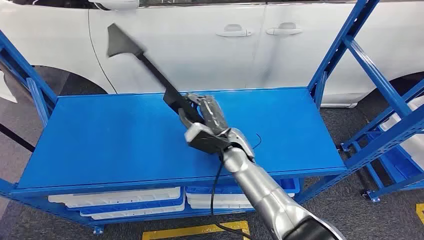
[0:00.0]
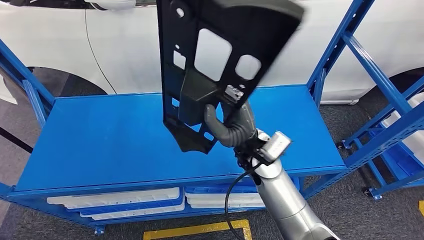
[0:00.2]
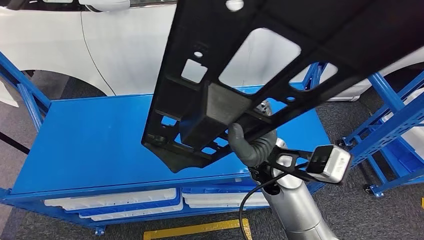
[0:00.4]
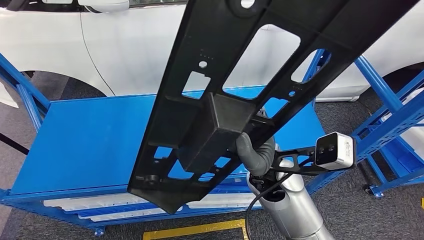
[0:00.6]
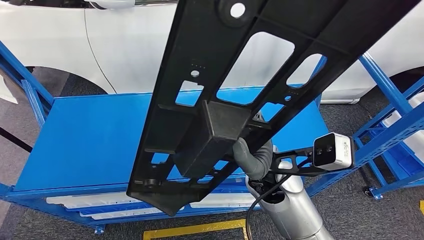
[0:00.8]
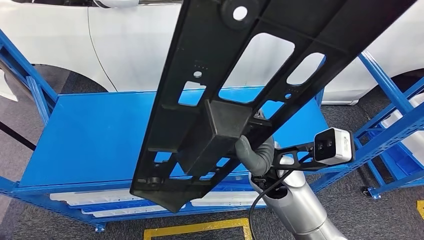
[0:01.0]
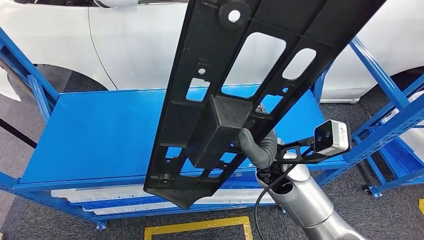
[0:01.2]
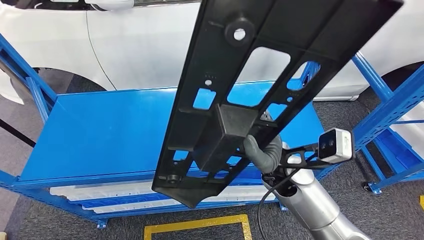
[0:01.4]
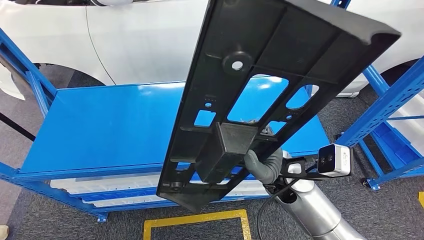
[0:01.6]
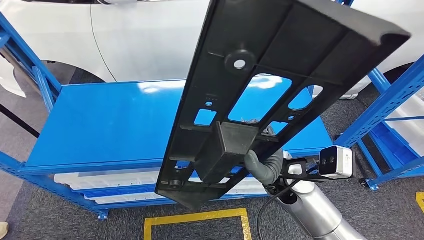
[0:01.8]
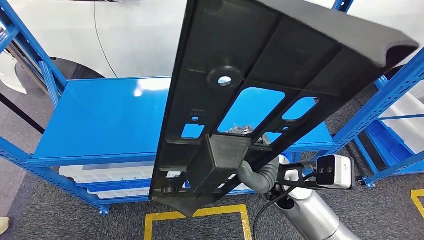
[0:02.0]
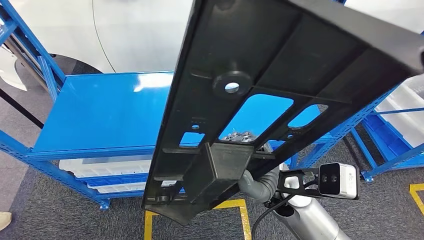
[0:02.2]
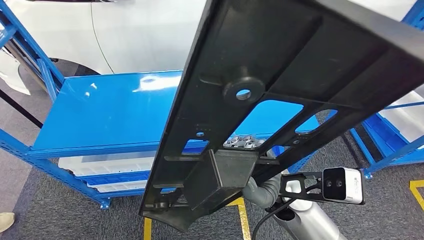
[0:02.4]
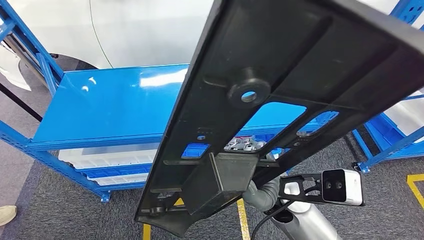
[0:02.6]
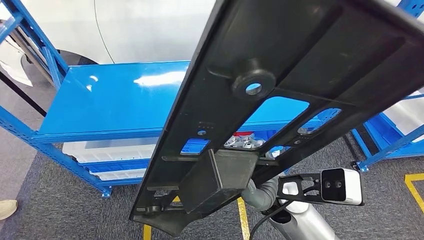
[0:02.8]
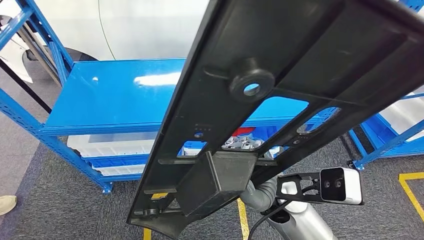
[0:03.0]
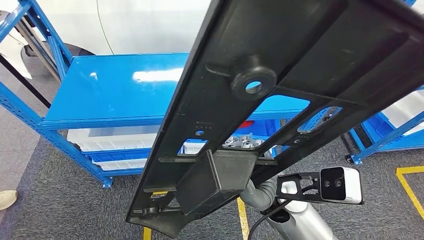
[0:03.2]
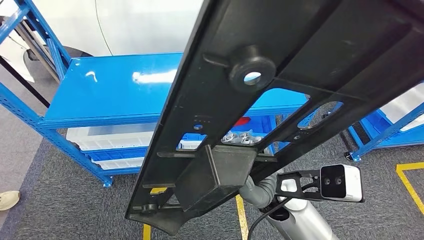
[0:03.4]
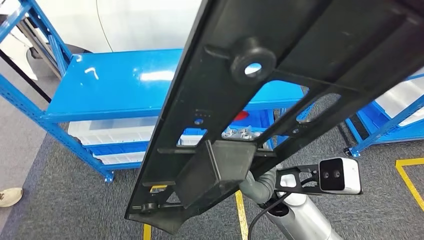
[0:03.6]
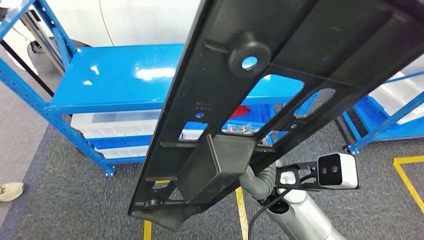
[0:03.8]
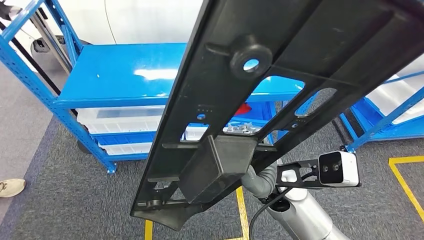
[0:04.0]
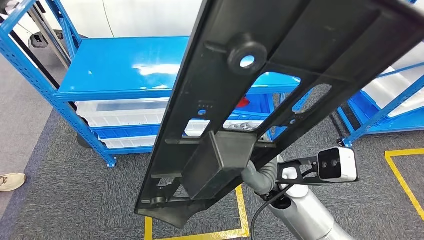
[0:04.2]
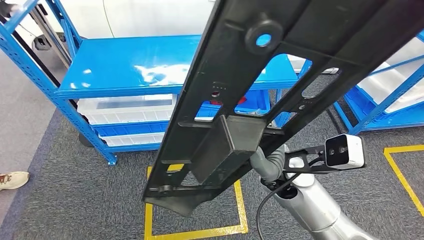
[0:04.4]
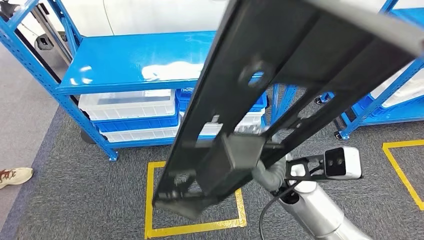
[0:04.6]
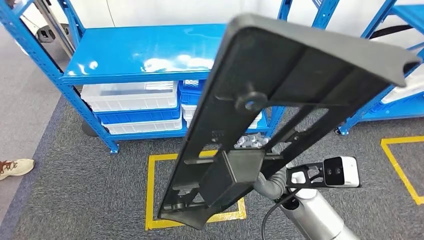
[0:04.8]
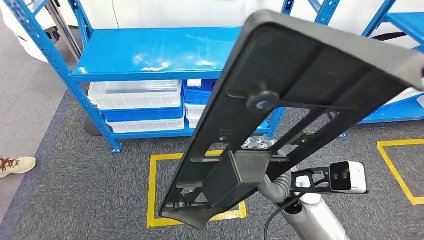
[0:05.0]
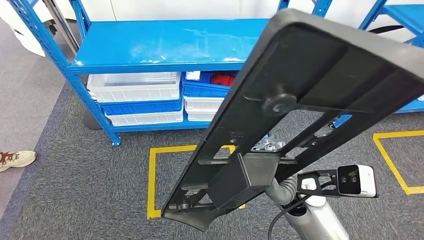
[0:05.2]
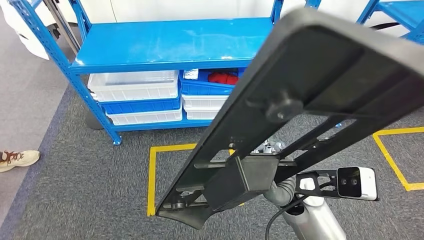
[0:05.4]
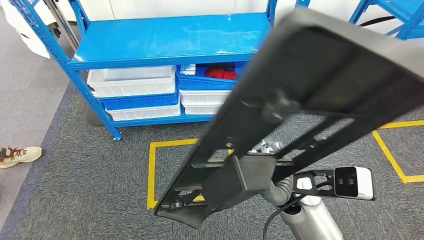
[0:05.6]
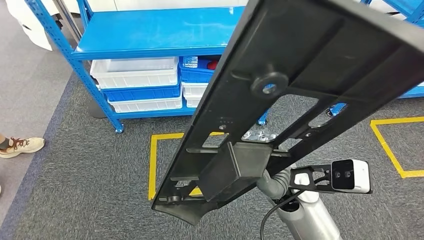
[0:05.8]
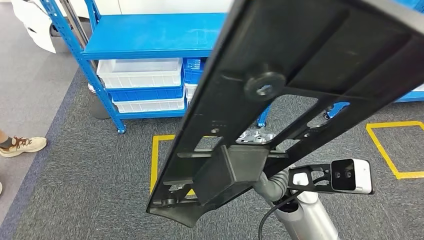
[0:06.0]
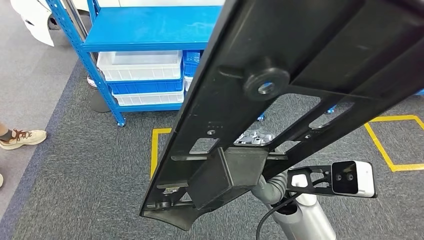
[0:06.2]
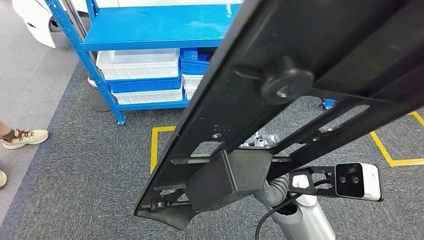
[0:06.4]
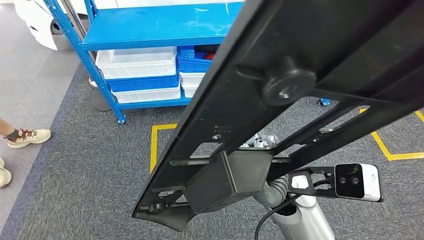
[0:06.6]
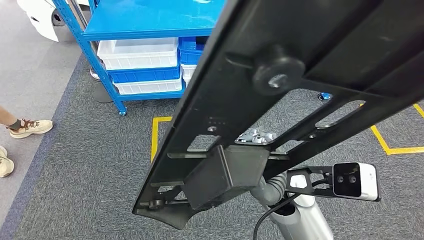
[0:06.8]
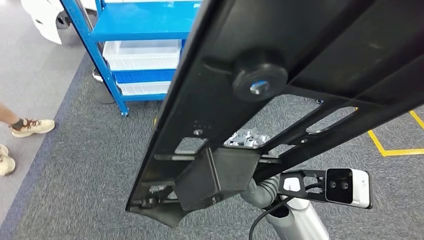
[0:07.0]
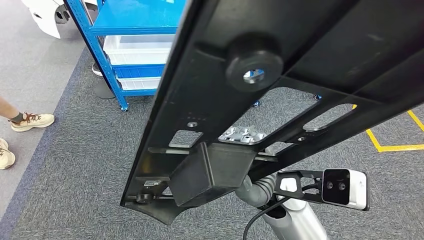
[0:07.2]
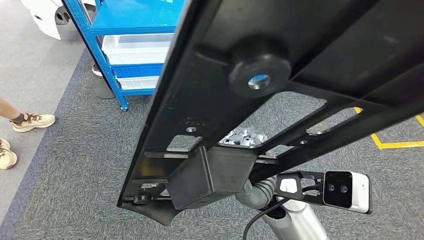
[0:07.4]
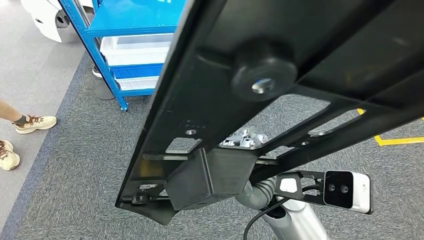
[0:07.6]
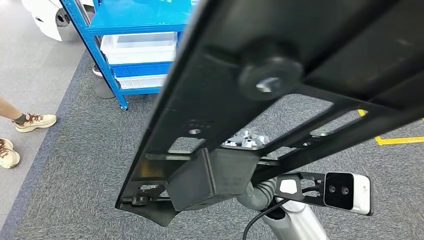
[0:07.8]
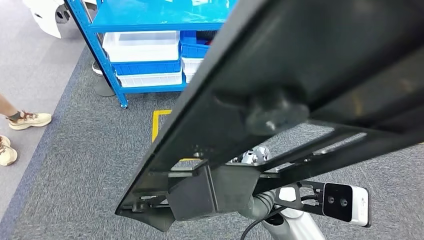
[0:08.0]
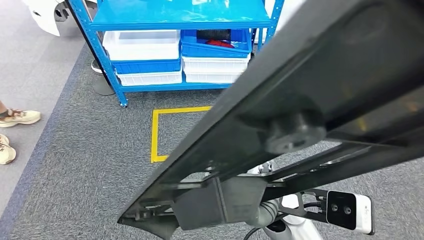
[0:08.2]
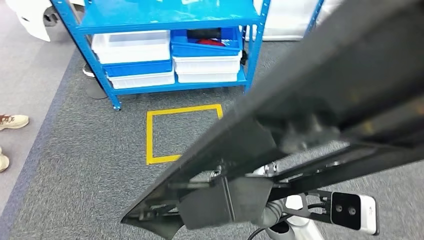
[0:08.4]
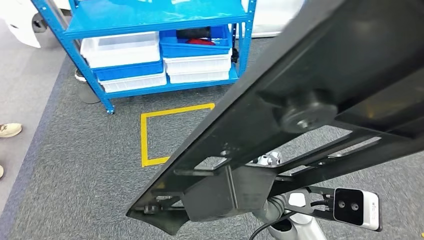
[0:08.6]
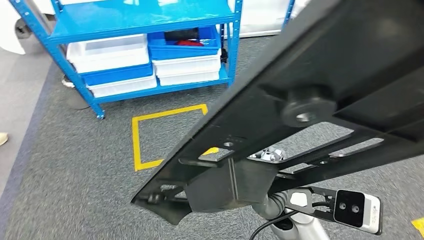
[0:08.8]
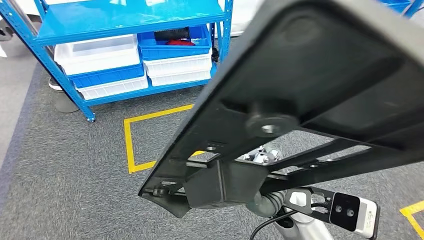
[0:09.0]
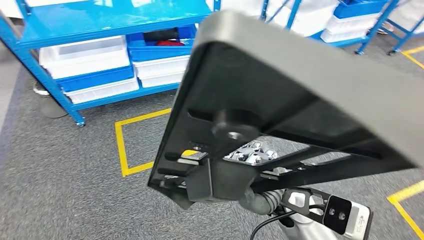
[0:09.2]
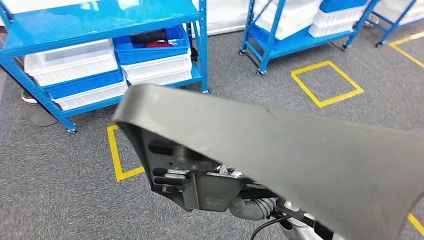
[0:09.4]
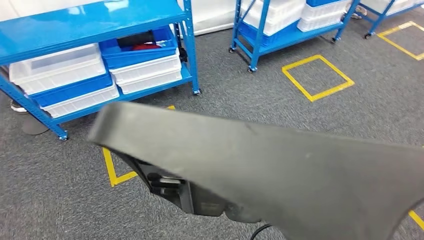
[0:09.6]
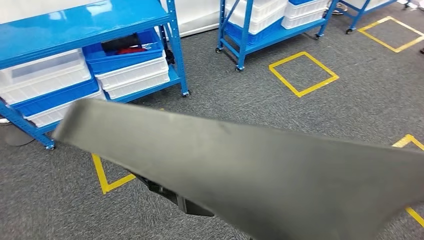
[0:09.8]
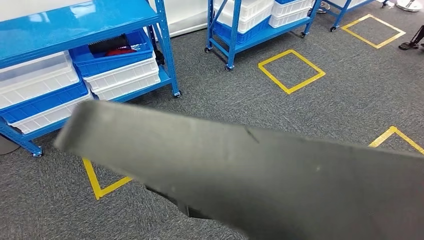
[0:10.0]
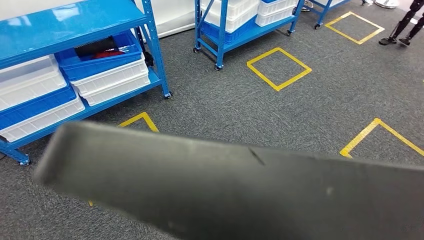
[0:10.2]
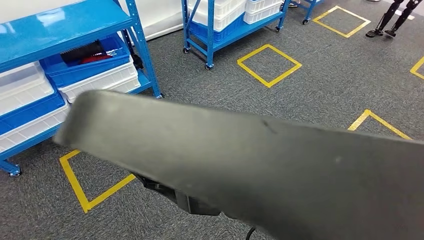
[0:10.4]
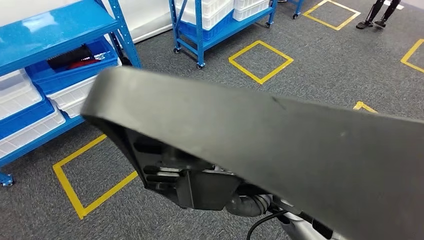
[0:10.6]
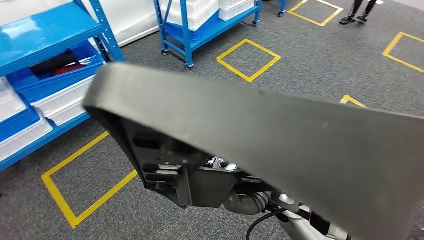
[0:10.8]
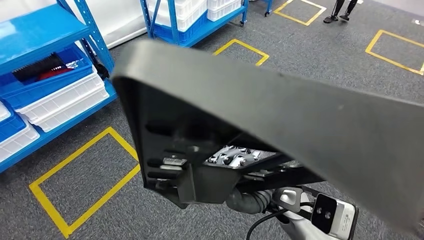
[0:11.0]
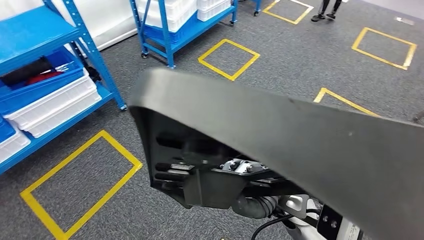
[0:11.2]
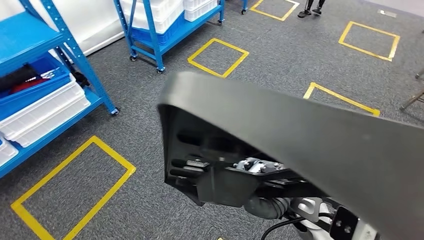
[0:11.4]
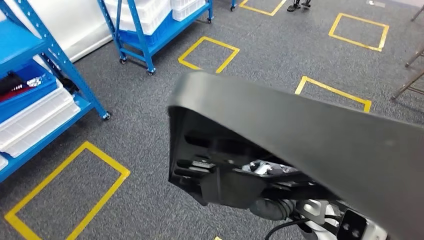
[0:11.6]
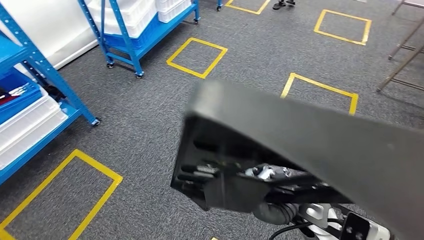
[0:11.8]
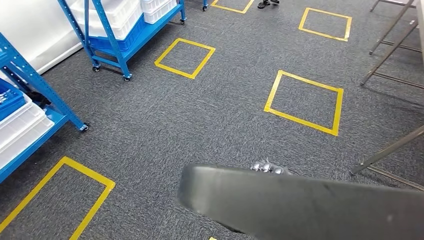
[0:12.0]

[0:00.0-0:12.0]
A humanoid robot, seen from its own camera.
Step, 0:00.0 to 0:00.8: Pick up the large material from the shelf.

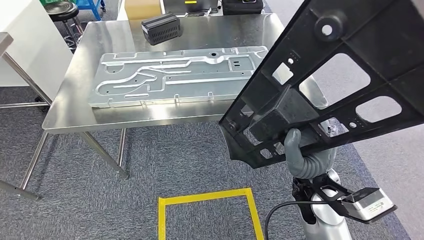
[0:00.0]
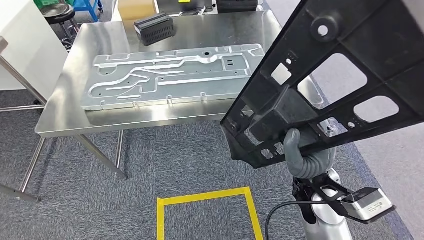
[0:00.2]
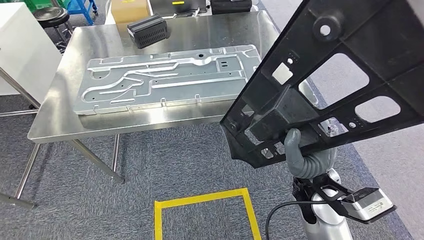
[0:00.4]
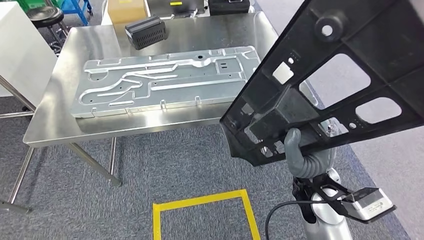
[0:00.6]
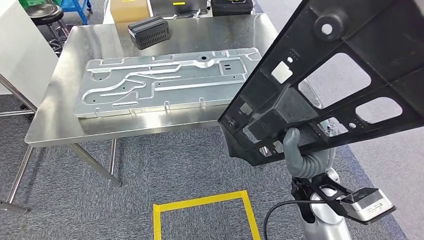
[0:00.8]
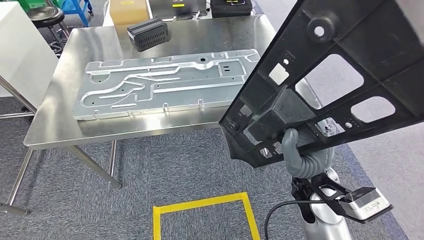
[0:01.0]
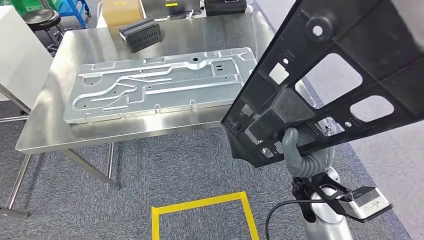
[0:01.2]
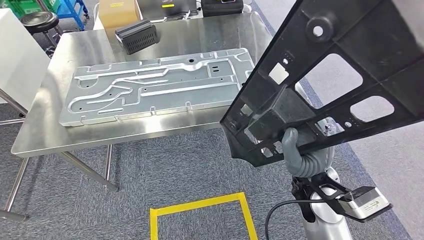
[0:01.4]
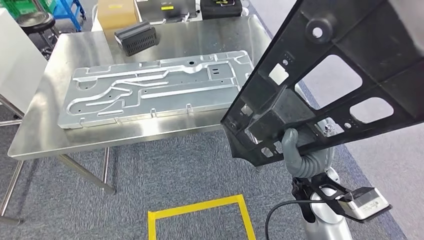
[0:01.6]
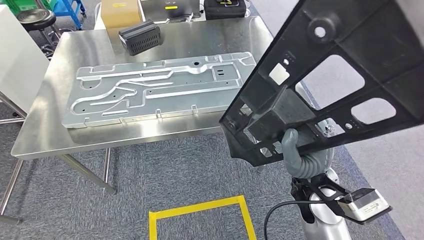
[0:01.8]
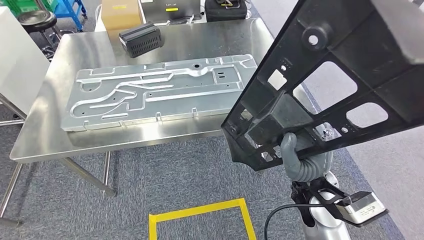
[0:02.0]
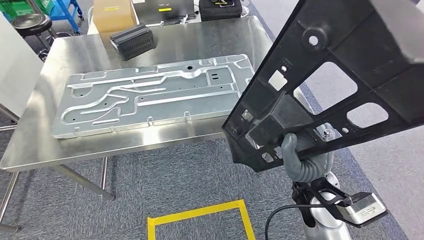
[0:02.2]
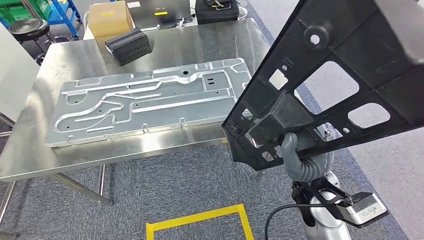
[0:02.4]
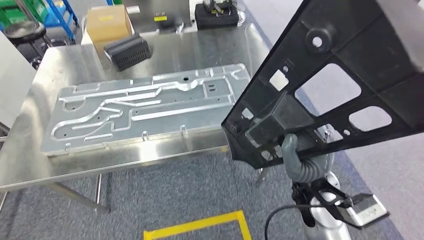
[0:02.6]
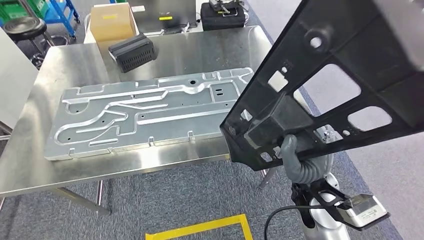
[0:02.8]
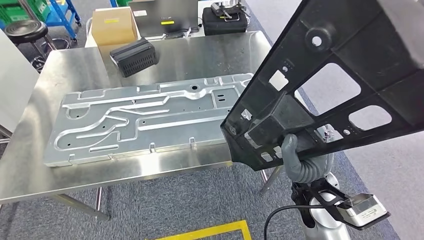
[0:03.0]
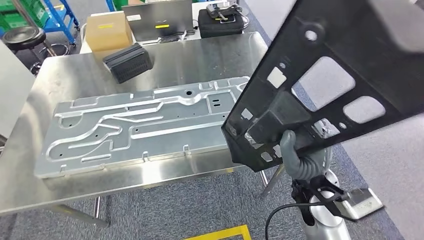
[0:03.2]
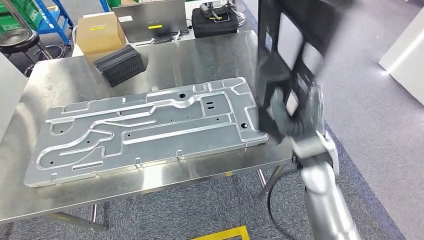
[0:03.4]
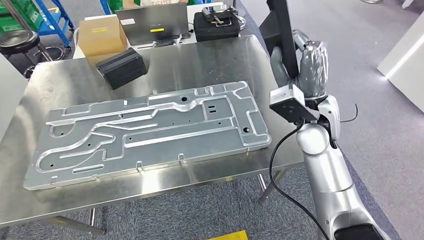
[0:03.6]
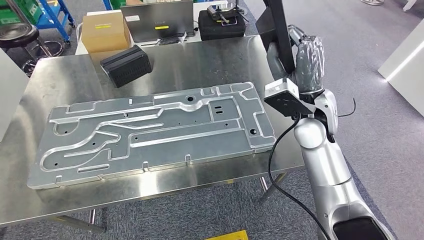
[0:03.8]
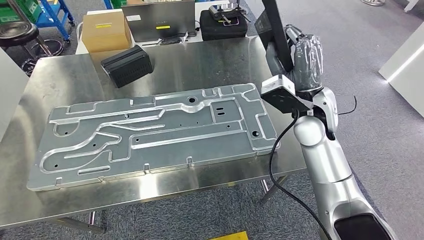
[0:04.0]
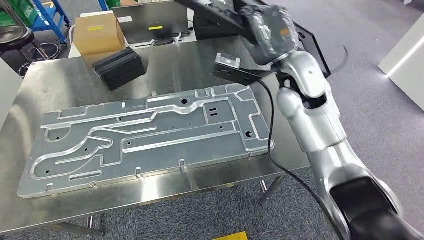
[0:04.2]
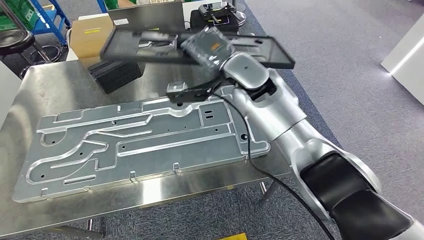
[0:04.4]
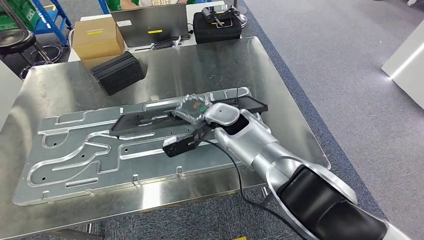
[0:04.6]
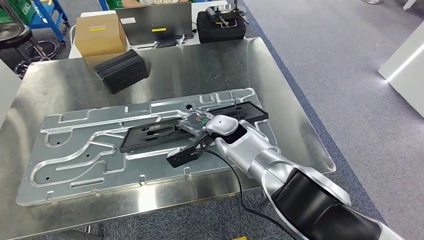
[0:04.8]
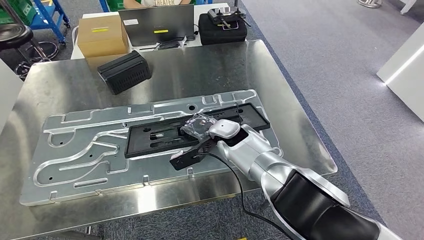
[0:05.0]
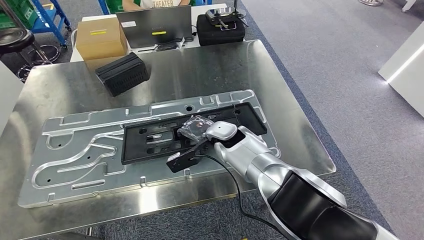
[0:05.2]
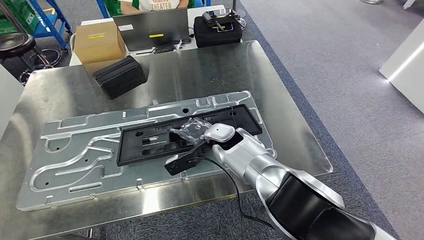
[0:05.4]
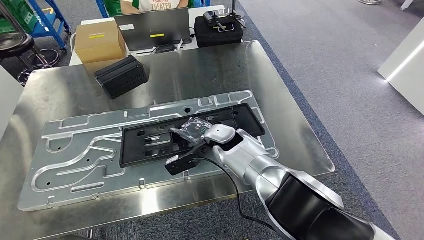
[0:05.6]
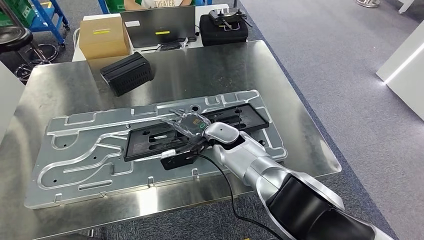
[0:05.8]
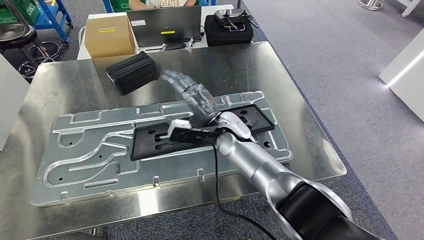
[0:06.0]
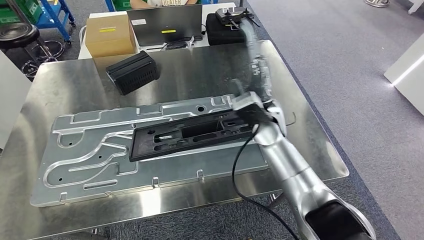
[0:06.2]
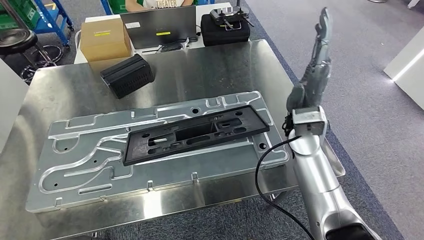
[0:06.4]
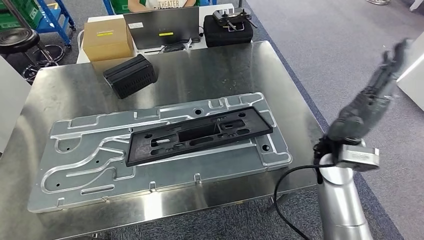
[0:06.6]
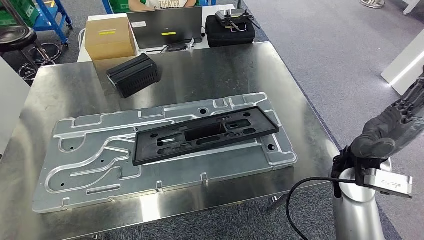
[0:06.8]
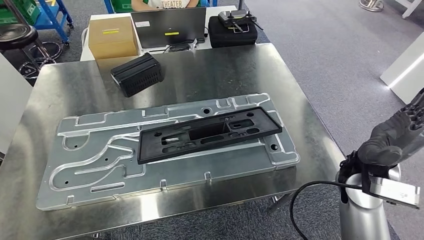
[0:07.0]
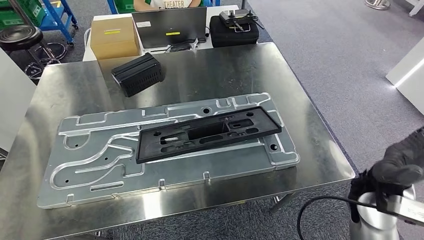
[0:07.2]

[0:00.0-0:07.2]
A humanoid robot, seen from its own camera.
Step, 0:00.0 to 0:04.4: Move the large material to the workbench.
